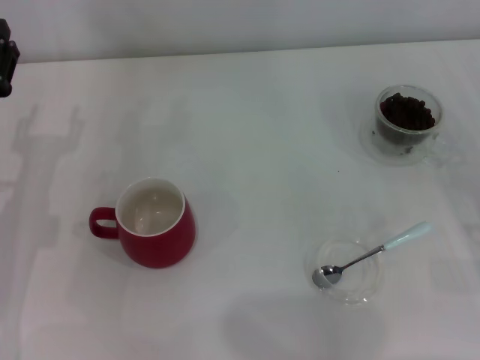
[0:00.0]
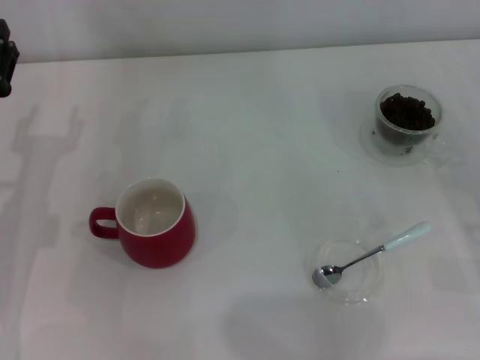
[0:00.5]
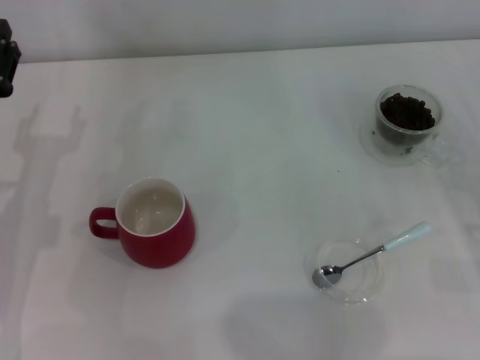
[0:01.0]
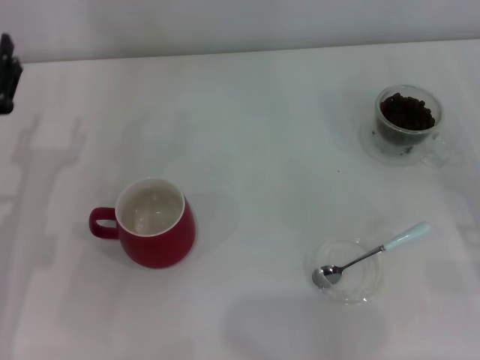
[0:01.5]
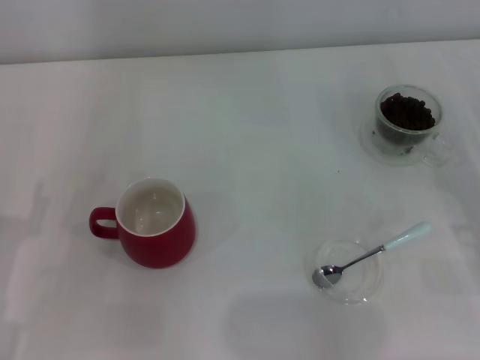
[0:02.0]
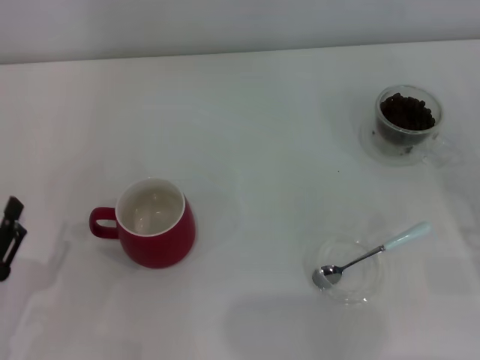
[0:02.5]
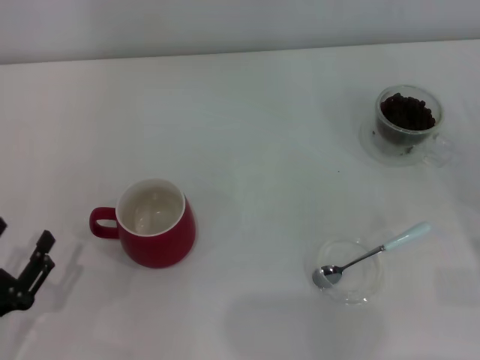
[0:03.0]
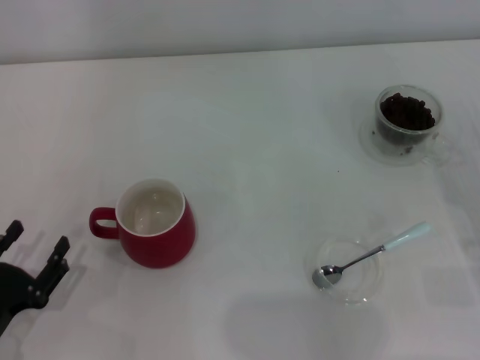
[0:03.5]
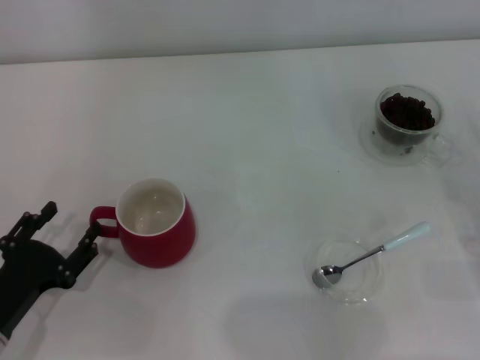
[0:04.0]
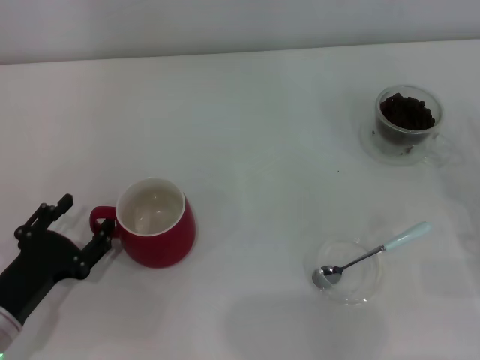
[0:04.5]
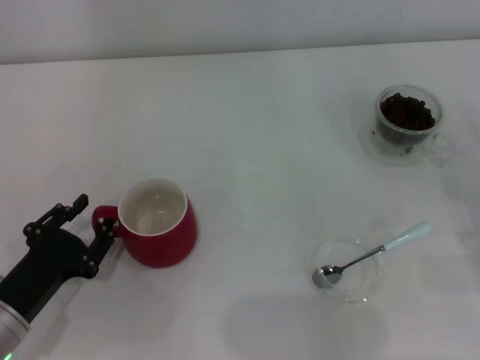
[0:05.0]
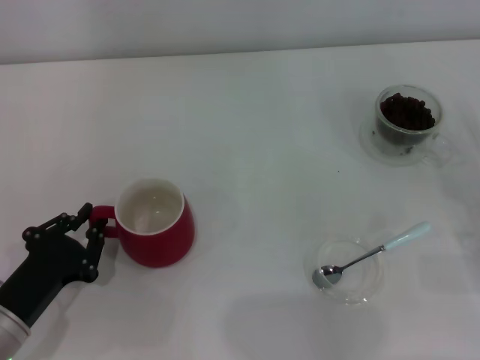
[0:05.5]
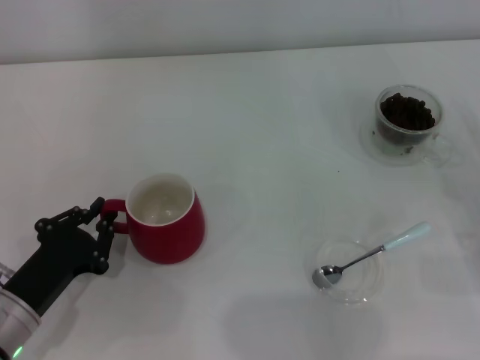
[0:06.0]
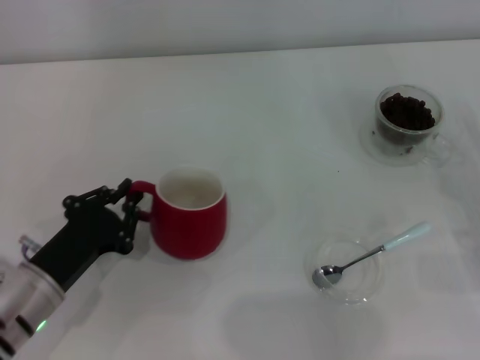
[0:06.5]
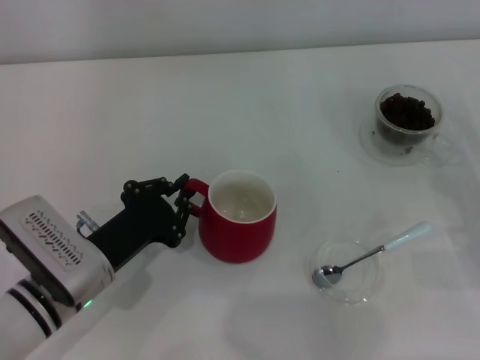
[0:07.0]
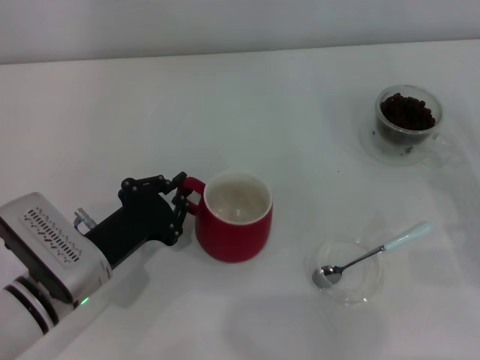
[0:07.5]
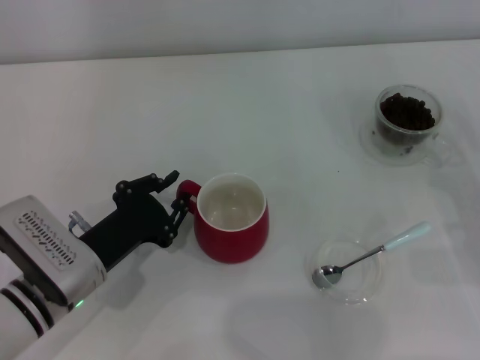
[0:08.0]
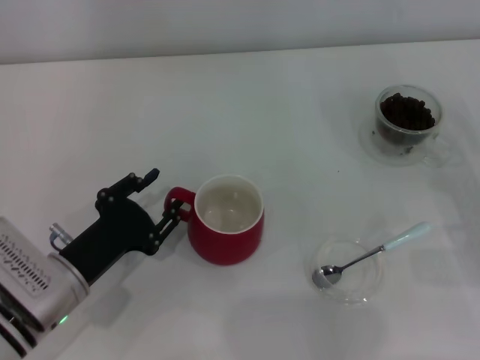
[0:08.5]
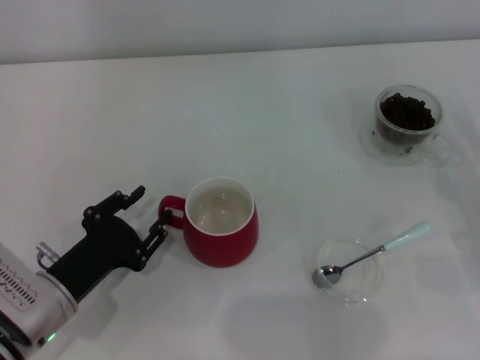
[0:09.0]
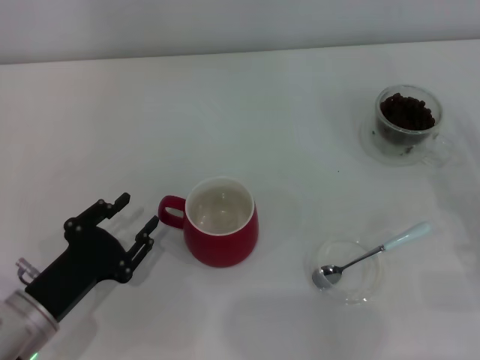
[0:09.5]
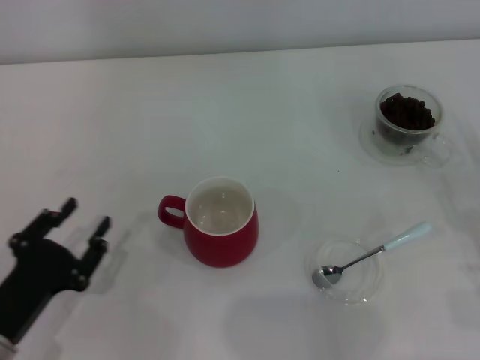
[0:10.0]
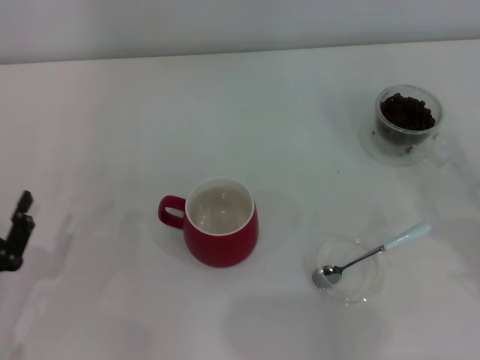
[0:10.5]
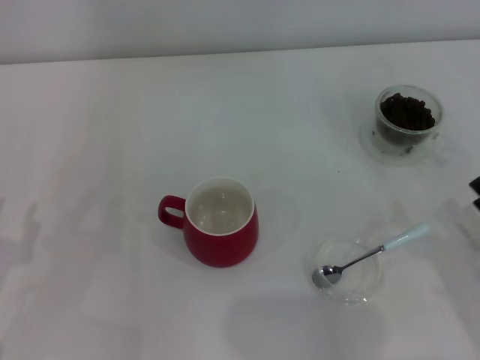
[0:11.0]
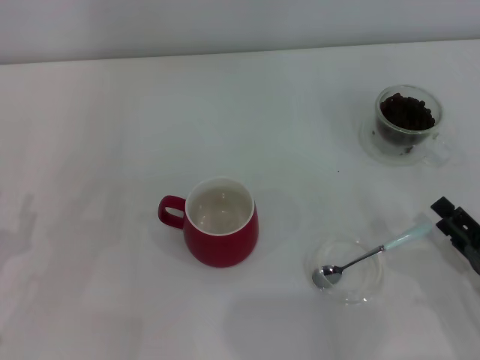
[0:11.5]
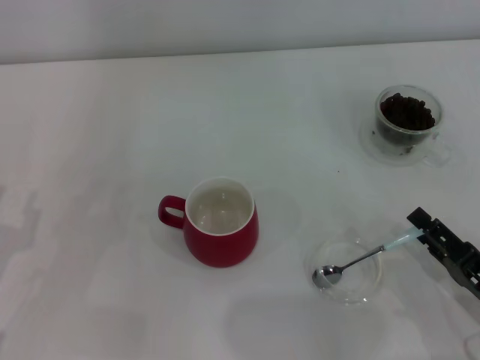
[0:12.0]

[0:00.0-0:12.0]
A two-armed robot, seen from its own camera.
Task of the whole recording: Use a blue spoon to take out the coffee beans from the glass and pour them into the red cup.
Step, 0:00.0 to 0:09.5: Move the cup to the center of view with the left gripper.
0:04.0 to 0:06.0: The left gripper closes its fingers.
0:06.0 to 0:08.0: The left gripper shifts about 5 cm to the right.
0:08.0 to 0:10.0: The right gripper travels backward by roughly 5 cm; the left gripper goes some 10 cm backward and to the left, and opens up.
0:10.0 to 0:12.0: The grippers both shift to the left by some 5 cm.

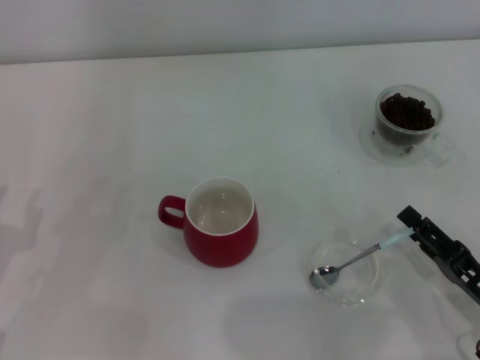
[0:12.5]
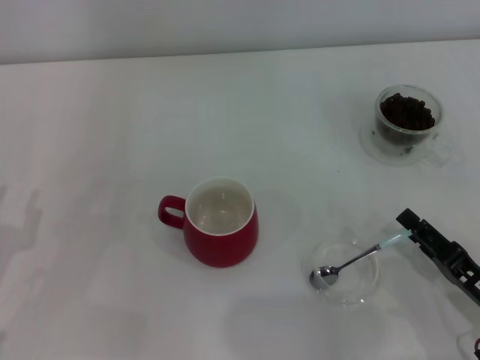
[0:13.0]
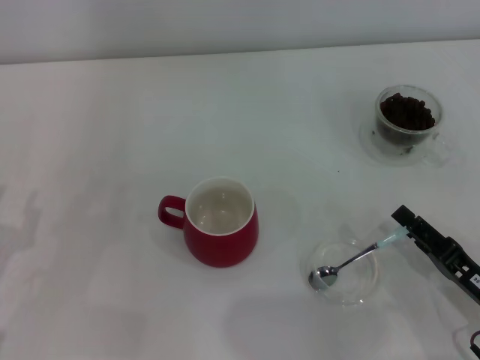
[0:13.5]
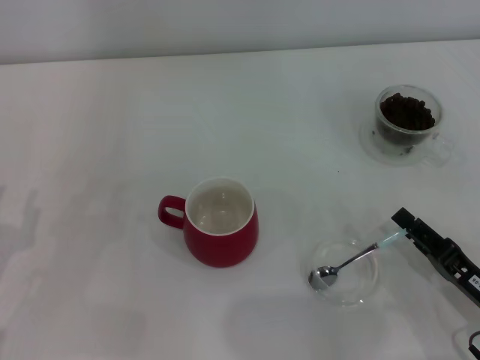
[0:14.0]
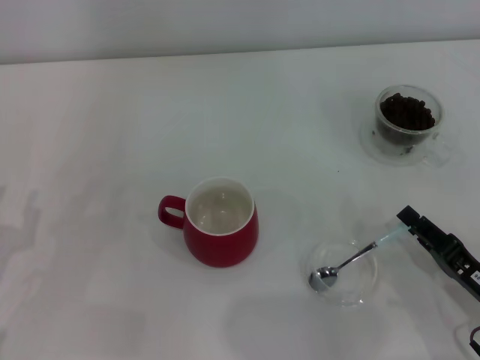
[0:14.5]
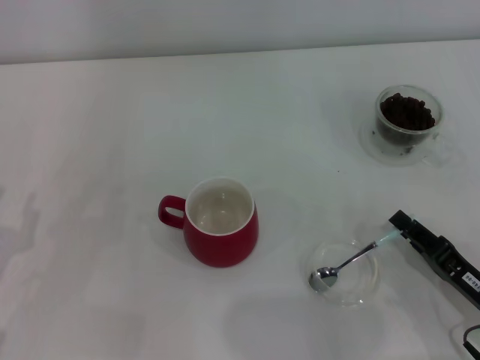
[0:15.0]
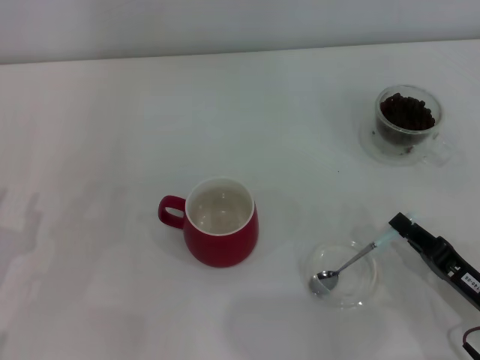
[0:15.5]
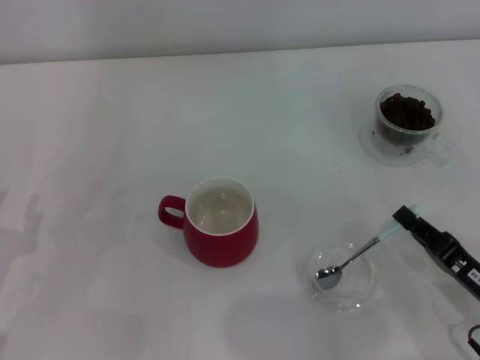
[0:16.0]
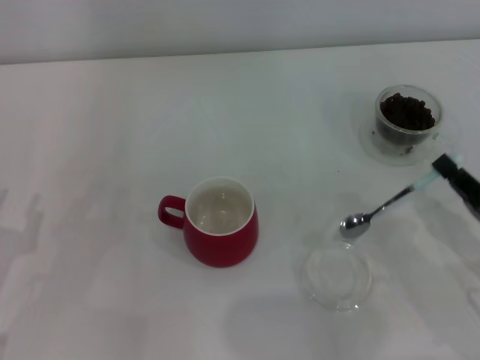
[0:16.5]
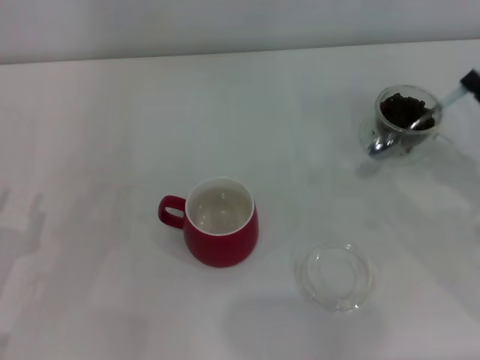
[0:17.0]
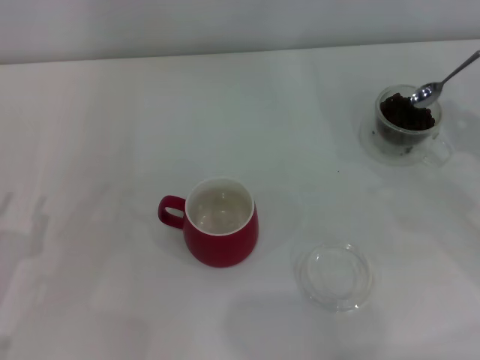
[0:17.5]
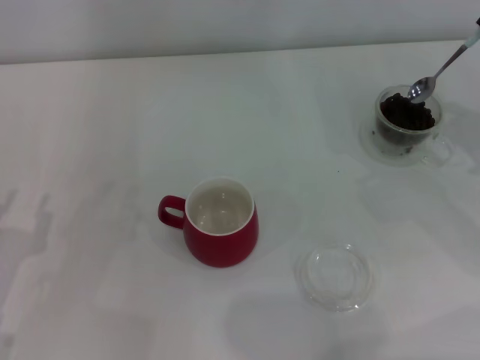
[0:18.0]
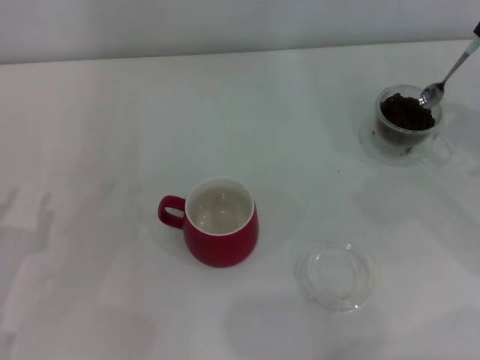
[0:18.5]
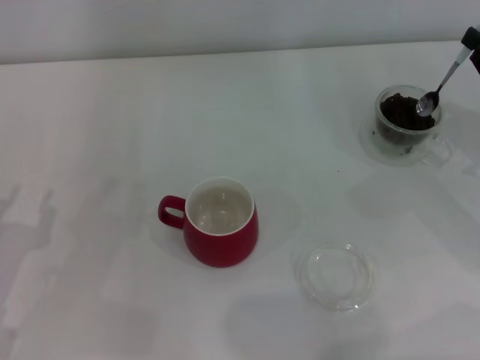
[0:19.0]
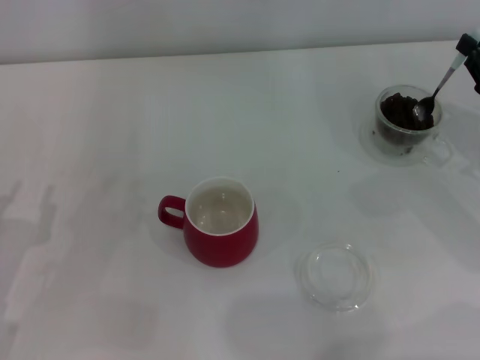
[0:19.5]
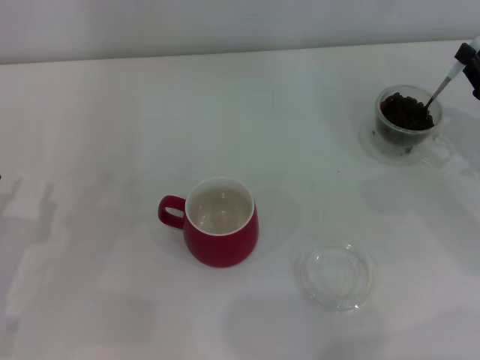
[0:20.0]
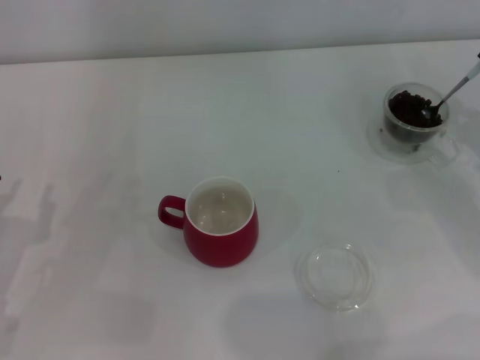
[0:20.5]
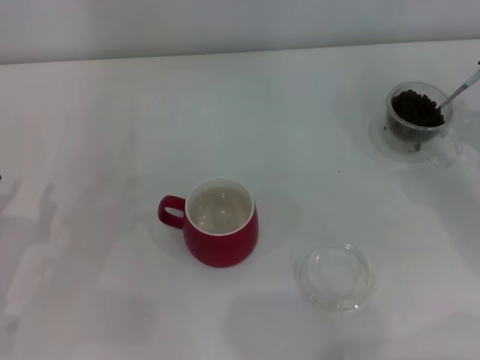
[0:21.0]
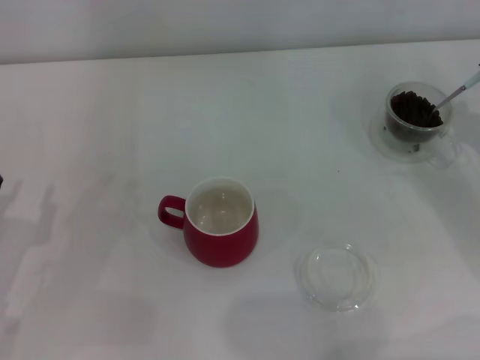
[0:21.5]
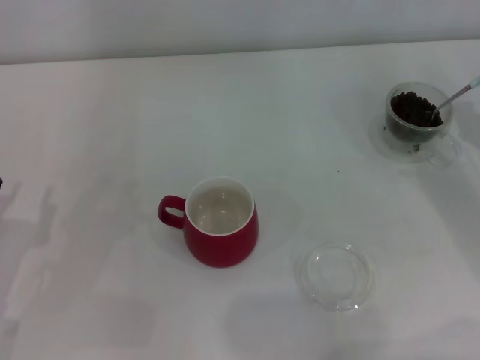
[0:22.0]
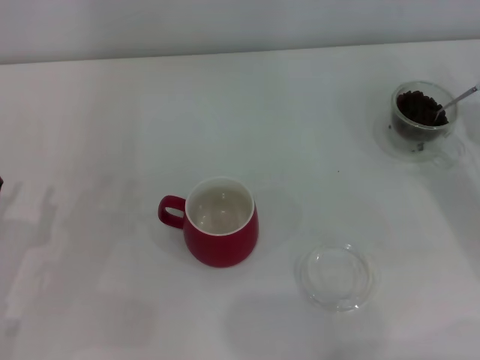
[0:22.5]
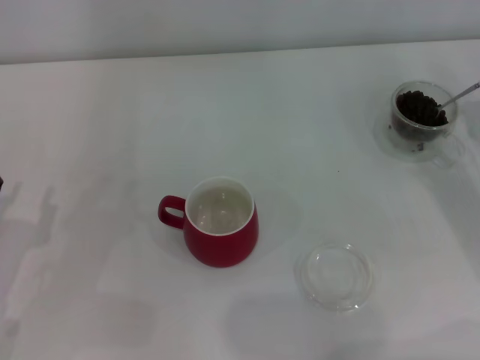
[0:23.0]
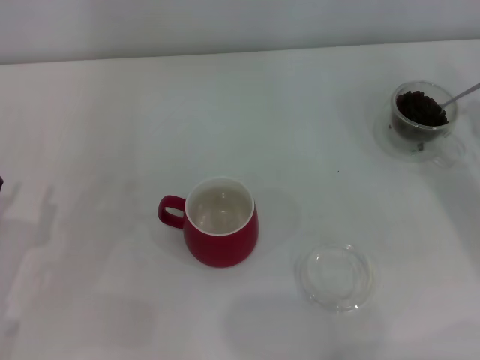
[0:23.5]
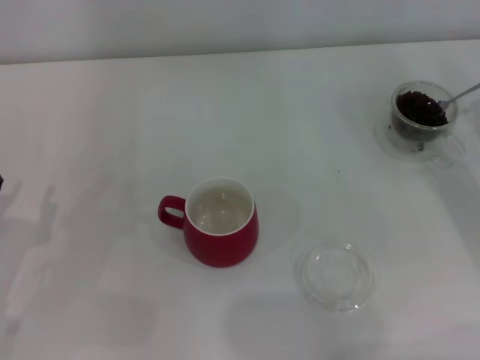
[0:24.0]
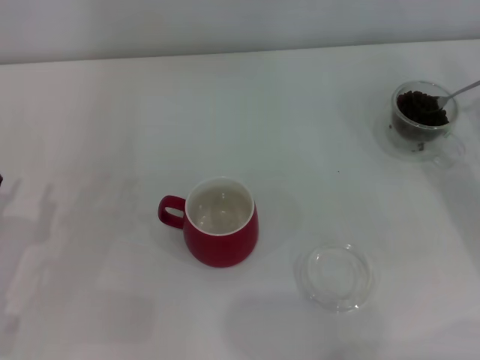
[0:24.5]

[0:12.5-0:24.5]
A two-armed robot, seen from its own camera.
Task of the whole recording: Use a blue spoon to take out the coffee beans from the glass and pour them into the red cup.
Step, 0:12.5 to 0:16.0: Pick up the spoon with the right gripper.
0:12.5 to 0:14.5: The right gripper closes up.
0:14.5 to 0:16.5: The right gripper closes up.
0:16.5 to 0:18.5: The right gripper shifts approximately 15 cm forward, upward and to the right.

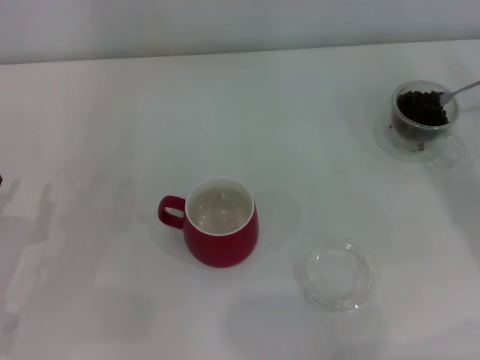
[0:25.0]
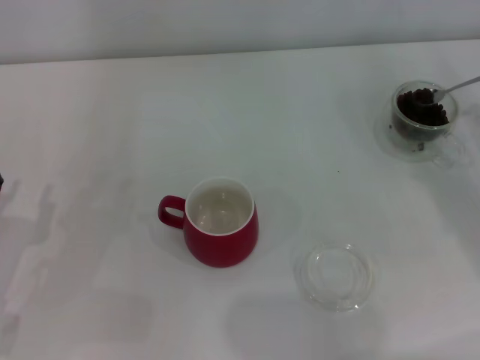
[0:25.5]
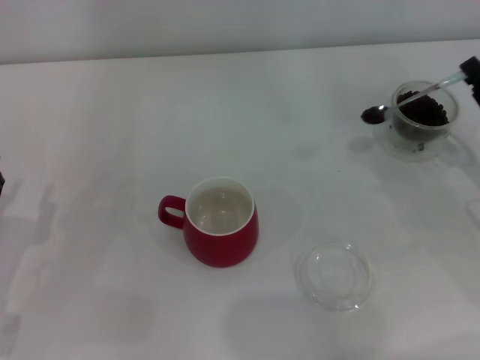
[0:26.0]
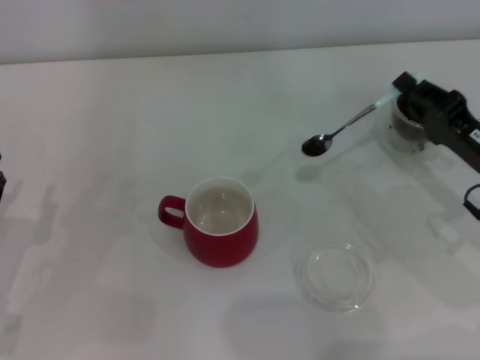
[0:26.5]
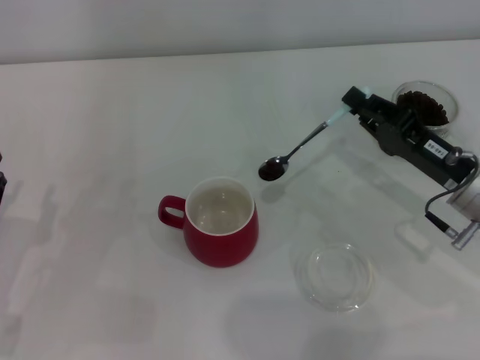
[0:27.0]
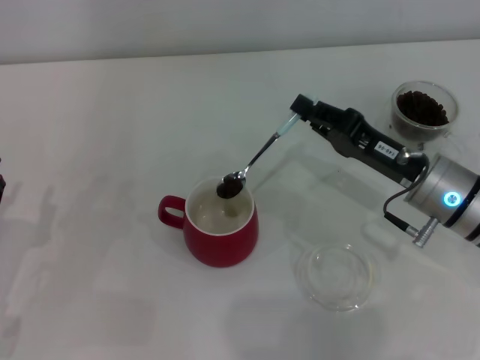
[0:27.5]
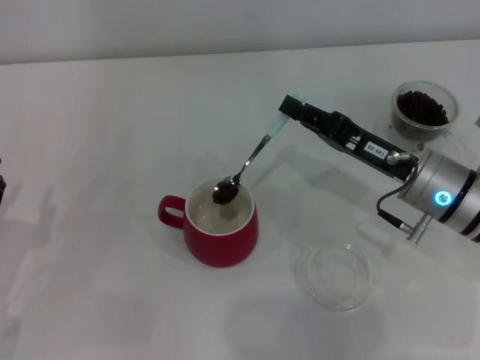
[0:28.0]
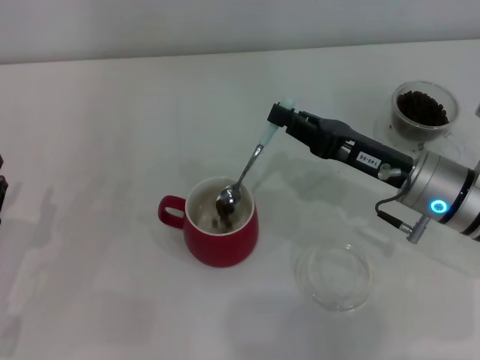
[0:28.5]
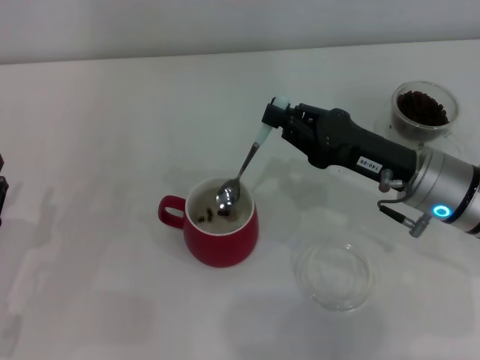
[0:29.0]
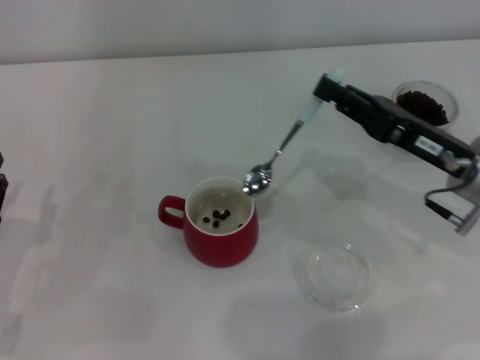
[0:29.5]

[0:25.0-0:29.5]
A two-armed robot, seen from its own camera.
Task of the whole recording: Use a blue spoon to take out the coffee beans from the glass and pour them into the red cup.
Step, 0:25.0 to 0:29.0: Scoop a spoonful of beans into the cup with the right gripper.
0:25.0 to 0:27.0: The right gripper goes about 15 cm to the left.
